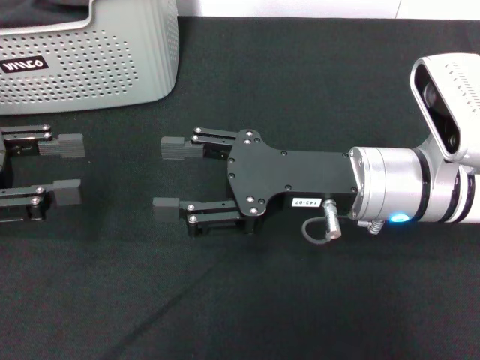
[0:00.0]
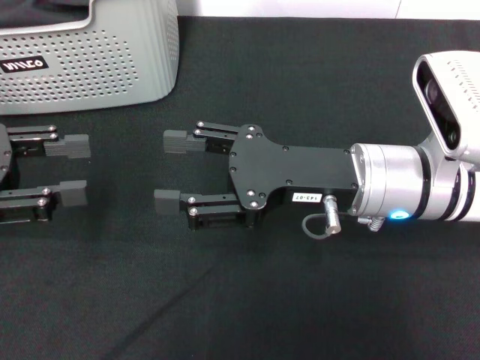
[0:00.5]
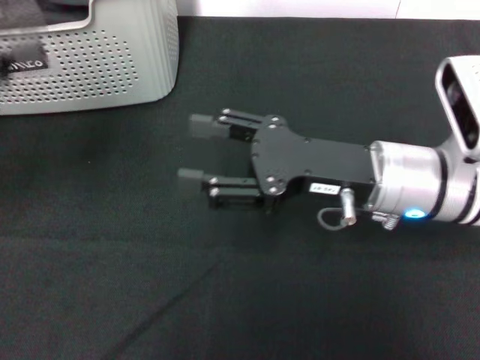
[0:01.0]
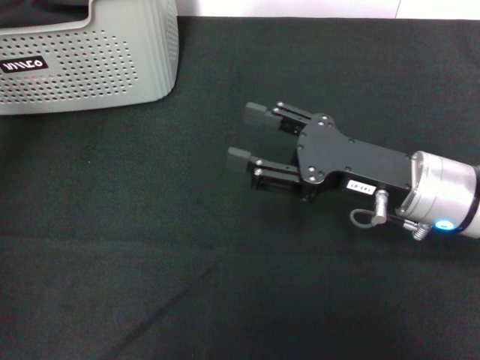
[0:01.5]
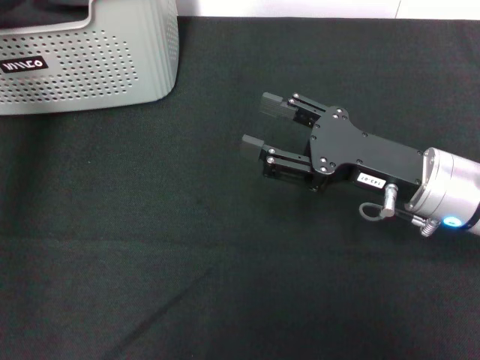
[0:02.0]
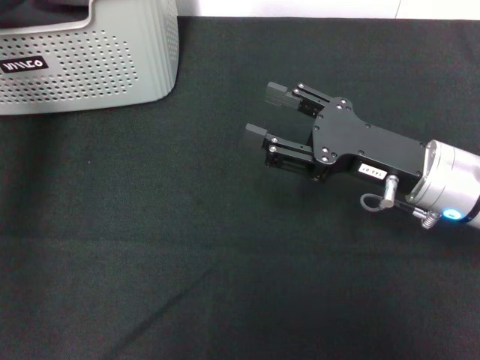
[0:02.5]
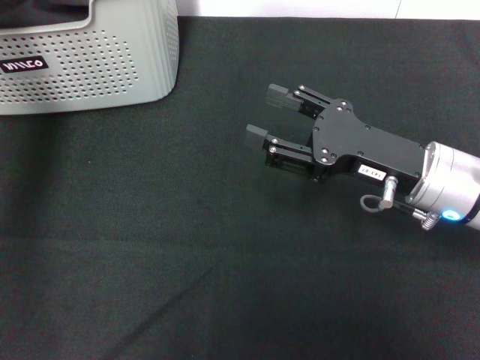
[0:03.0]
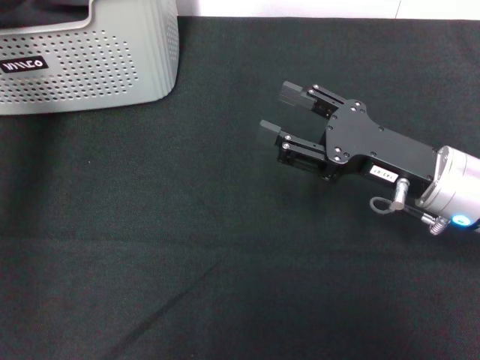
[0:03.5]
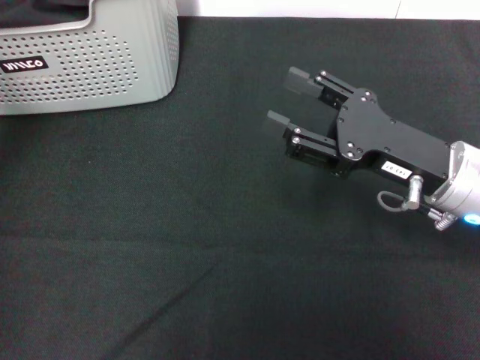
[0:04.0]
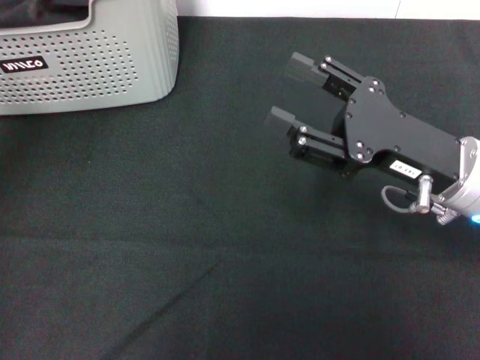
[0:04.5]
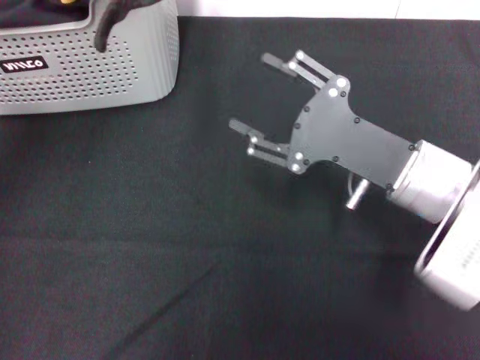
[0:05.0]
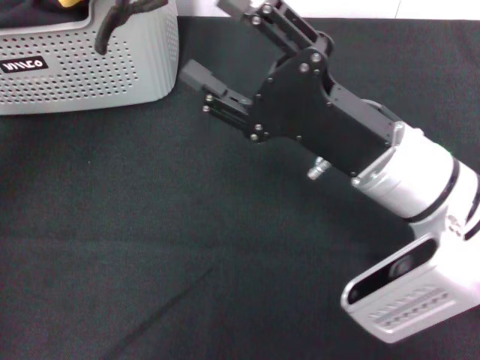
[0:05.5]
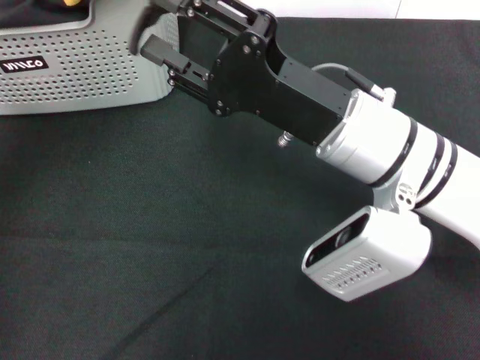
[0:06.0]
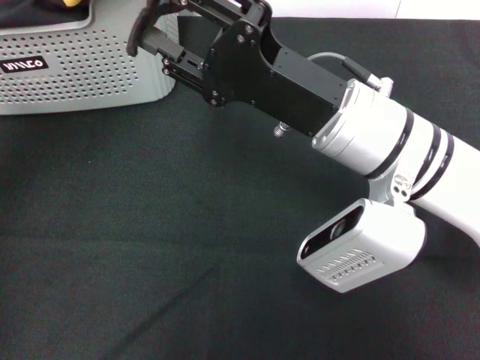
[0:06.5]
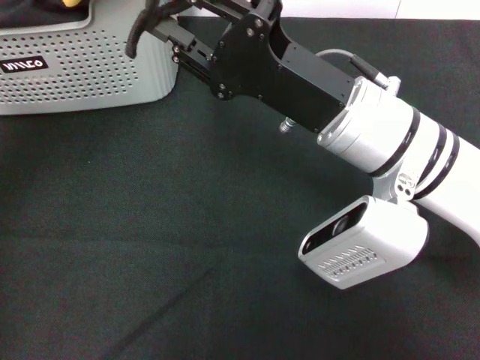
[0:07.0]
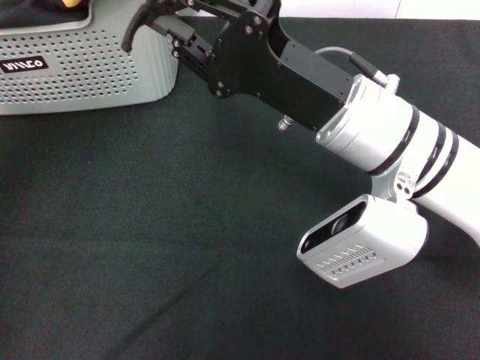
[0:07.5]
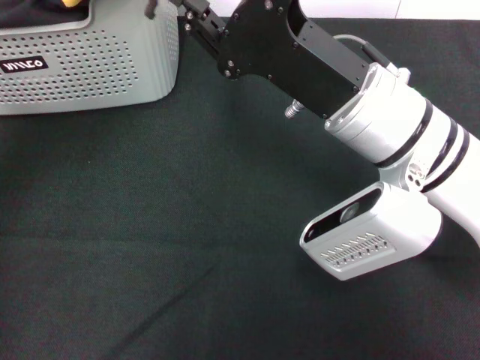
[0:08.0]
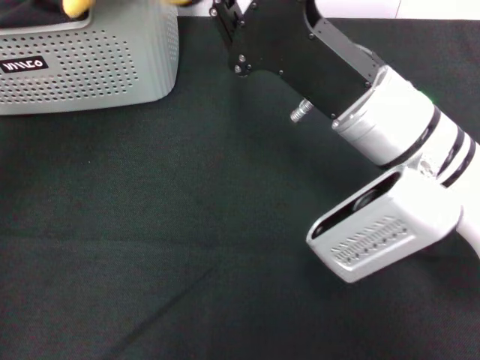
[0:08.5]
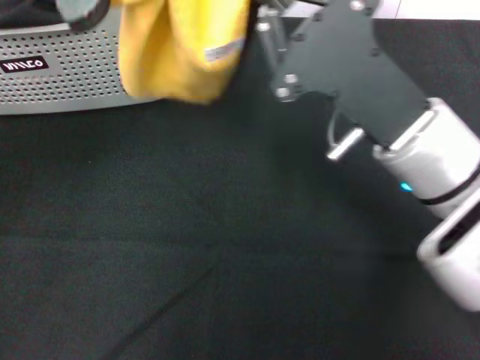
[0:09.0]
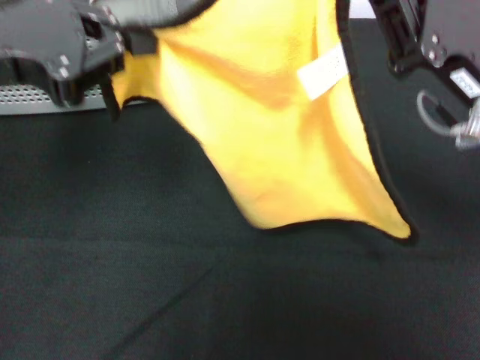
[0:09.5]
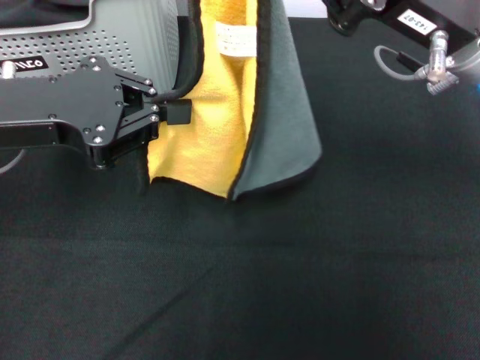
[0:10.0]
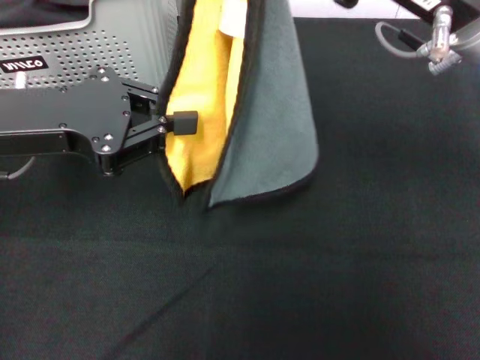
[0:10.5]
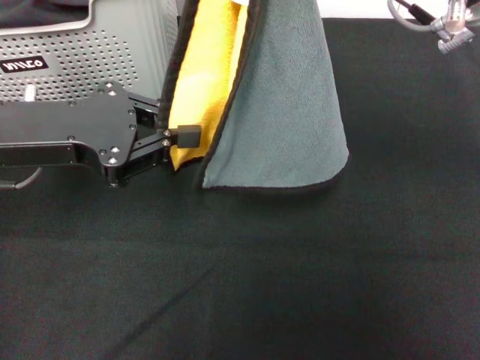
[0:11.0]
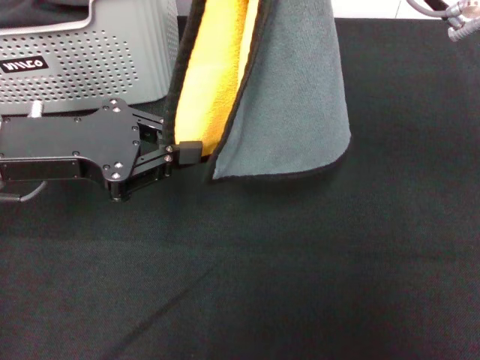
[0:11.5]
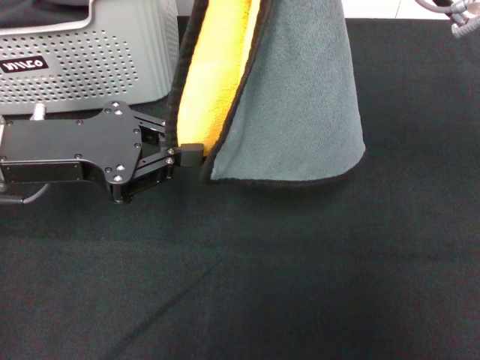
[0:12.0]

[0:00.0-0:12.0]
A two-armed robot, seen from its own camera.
Task of the whole recording: pick up the towel from the storage box and lay it flat on the black tablecloth.
Step, 0:00.0 to 0:03.0: Pick up a towel with the left gripper.
Step, 0:03.5 to 0:07.5: Spread the towel flat with the left gripper.
0:00.0 to 0:02.0: The left gripper goes about 15 cm forward, upward and to the right, while the right gripper goes some 5 cm to the right.
0:02.0 to 0:04.0: The left gripper shifts approximately 5 cm upward, and closes.
0:04.0 to 0:06.0: The left gripper ends up some 5 cm from where it was, while the right gripper moves to the left, about 10 cm.
0:06.0 to 0:08.0: The right gripper closes up.
0:08.0 to 0:10.0: The left gripper goes roughly 15 cm downward, while the right gripper travels to the right and upward by roughly 10 cm.

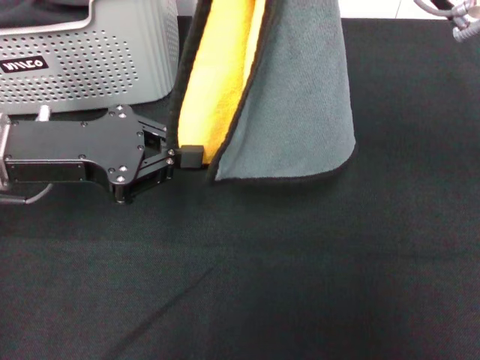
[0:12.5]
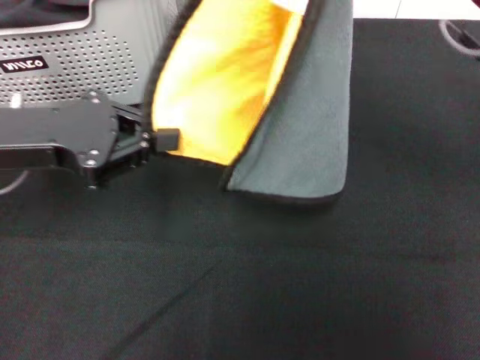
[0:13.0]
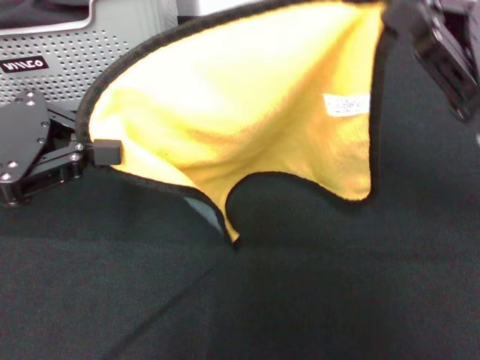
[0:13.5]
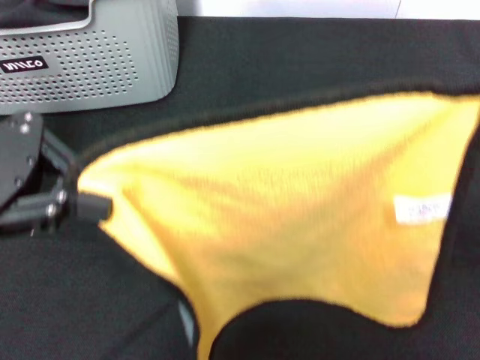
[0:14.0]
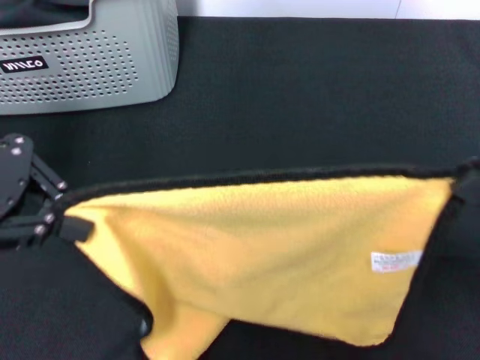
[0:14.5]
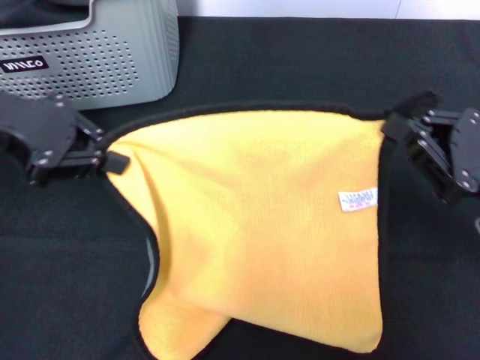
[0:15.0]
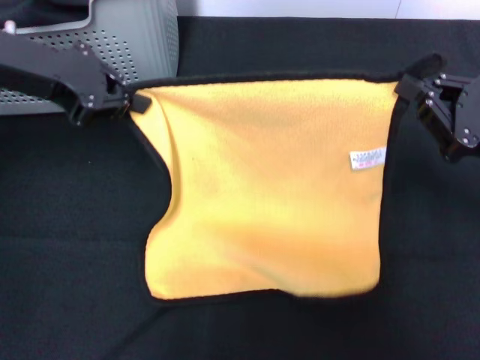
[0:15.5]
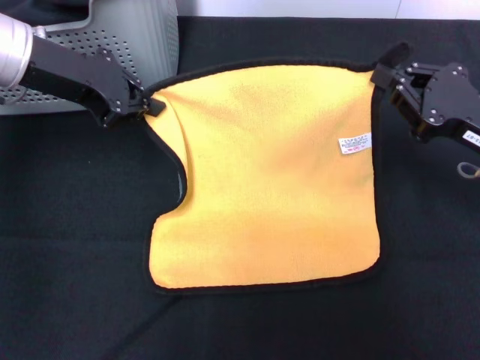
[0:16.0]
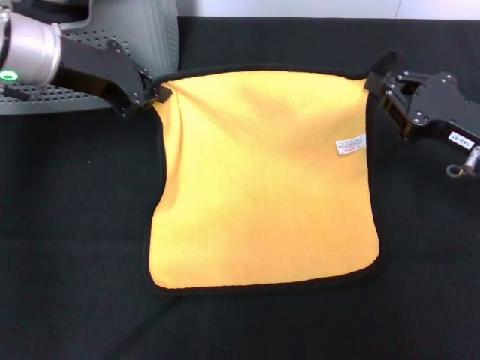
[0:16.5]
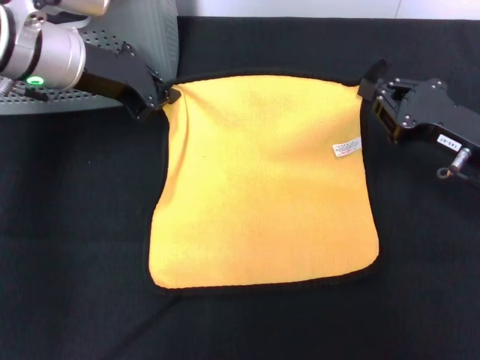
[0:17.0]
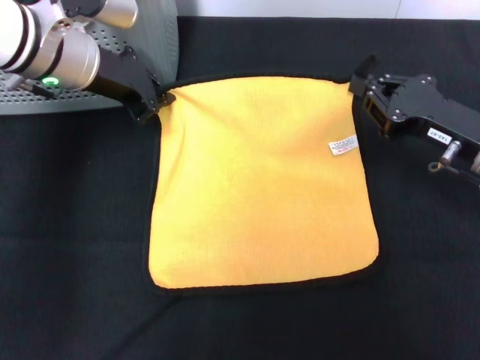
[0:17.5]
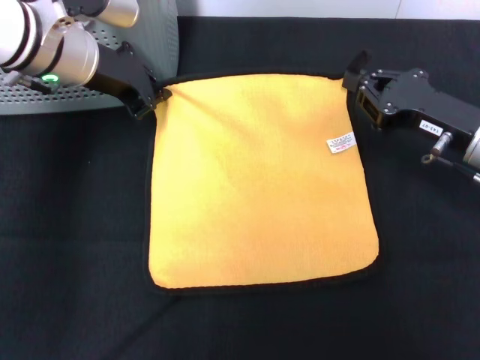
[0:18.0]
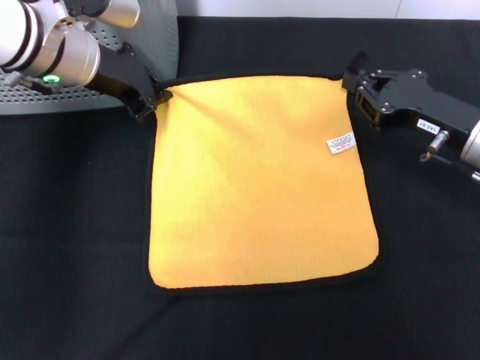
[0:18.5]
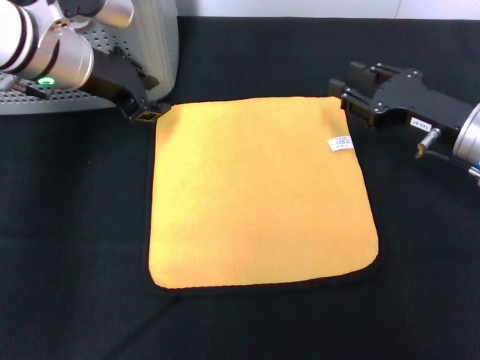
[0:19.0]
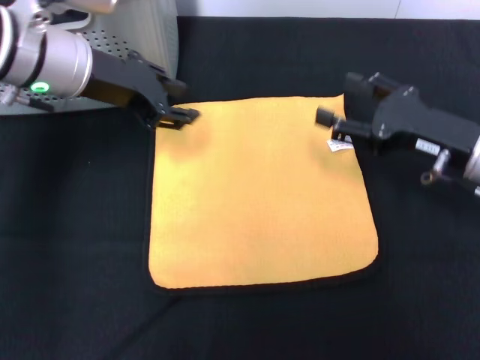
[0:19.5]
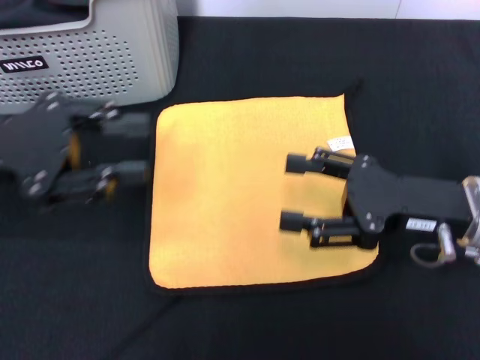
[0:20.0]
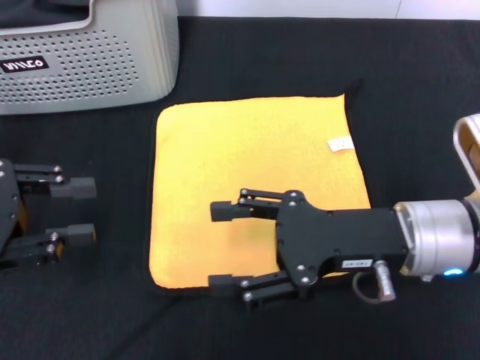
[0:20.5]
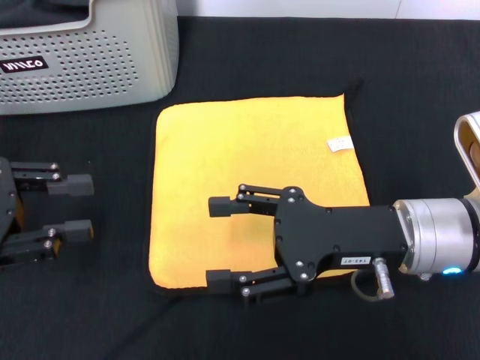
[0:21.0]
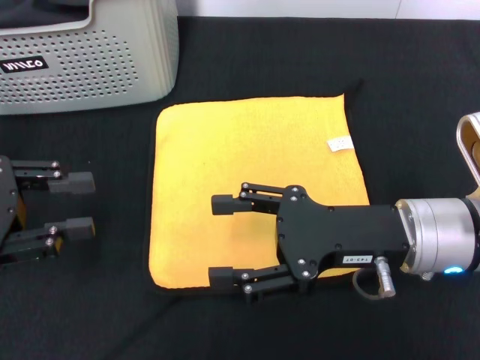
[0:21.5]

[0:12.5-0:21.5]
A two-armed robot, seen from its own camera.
Task of the whole recording: pick up the towel from the storage box and lay it flat on the black tablecloth.
Step, 0:12.5 to 0:18.5: Spread the towel flat with the right gripper.
0:12.5 to 0:14.5: The left gripper is displaced upward by some 10 cm, while the right gripper travels downward, backward and to the right by about 20 cm.
0:14.5 to 0:17.0: The left gripper moves forward, to the right and downward, roughly 15 cm. The right gripper travels forward by roughly 10 cm.
0:17.0 to 0:19.5: The left gripper opens up. Meanwhile the right gripper opens up.
0:19.5 to 0:21.5: The right gripper moves to the left and backward, approximately 10 cm, while the left gripper is displaced backward and to the left by about 20 cm.
